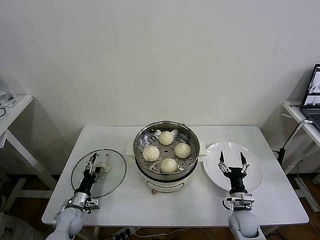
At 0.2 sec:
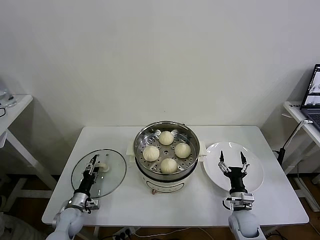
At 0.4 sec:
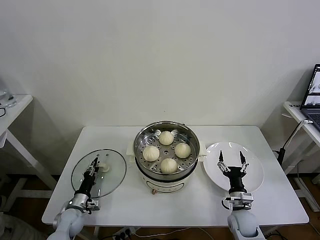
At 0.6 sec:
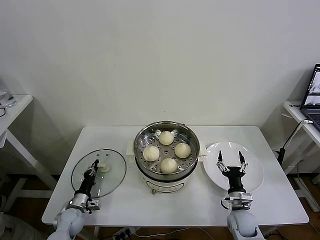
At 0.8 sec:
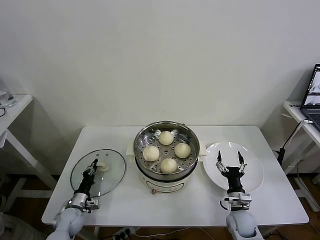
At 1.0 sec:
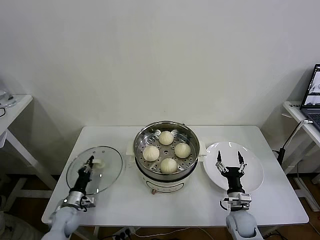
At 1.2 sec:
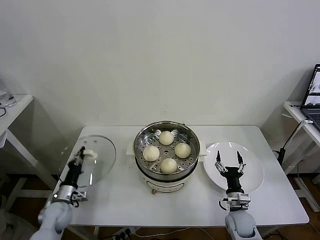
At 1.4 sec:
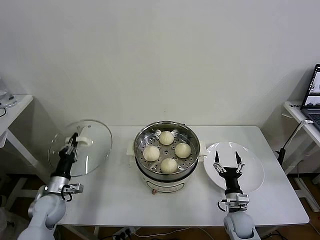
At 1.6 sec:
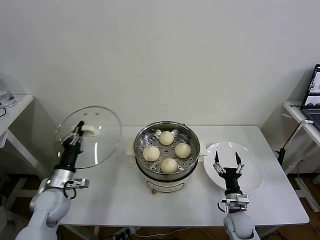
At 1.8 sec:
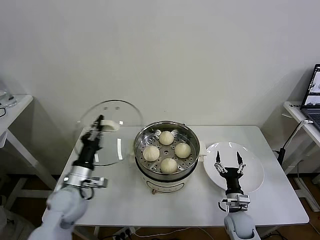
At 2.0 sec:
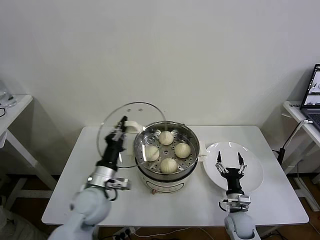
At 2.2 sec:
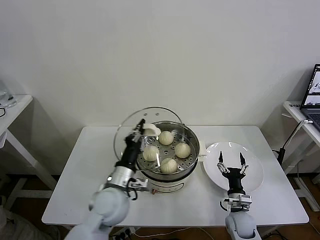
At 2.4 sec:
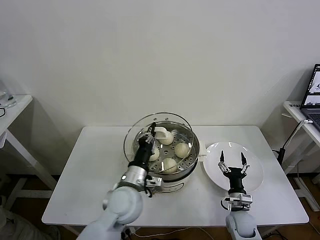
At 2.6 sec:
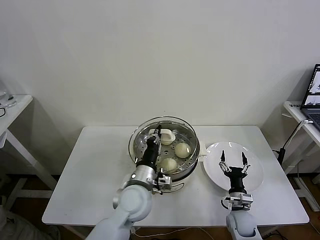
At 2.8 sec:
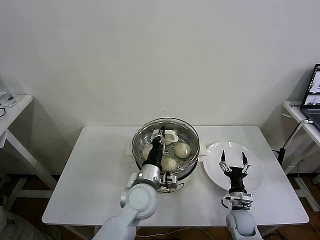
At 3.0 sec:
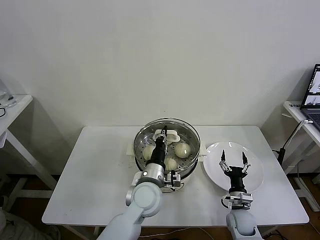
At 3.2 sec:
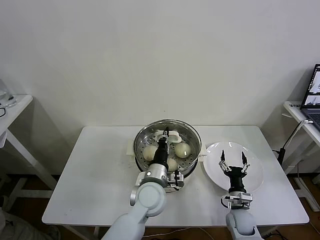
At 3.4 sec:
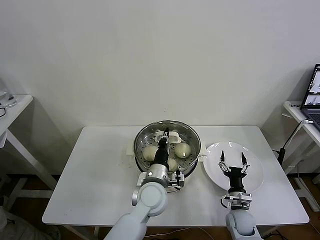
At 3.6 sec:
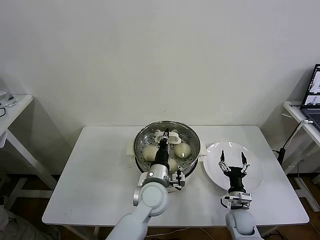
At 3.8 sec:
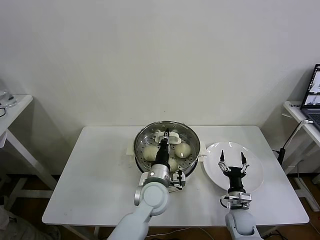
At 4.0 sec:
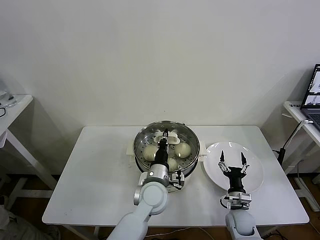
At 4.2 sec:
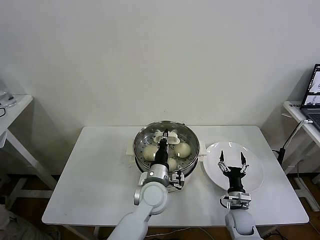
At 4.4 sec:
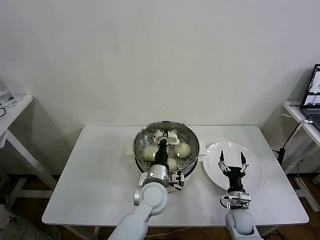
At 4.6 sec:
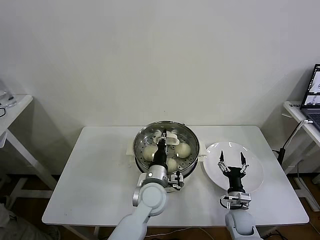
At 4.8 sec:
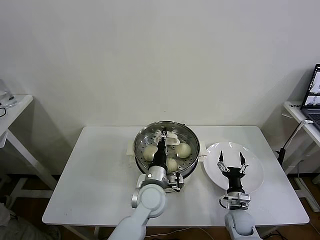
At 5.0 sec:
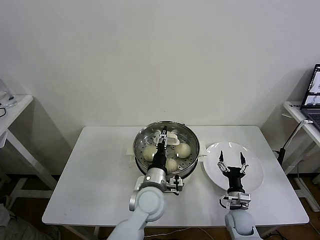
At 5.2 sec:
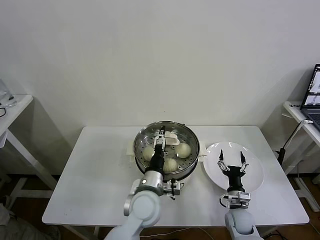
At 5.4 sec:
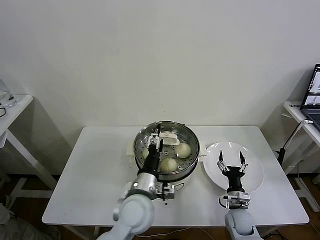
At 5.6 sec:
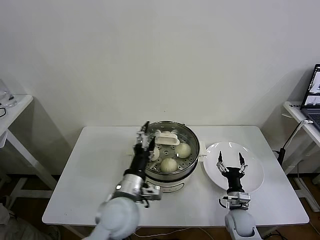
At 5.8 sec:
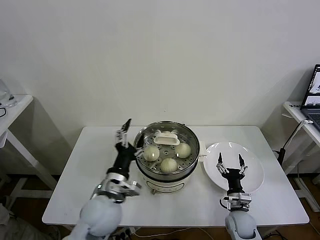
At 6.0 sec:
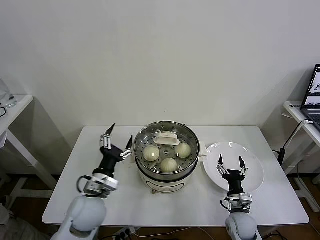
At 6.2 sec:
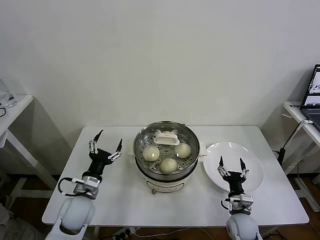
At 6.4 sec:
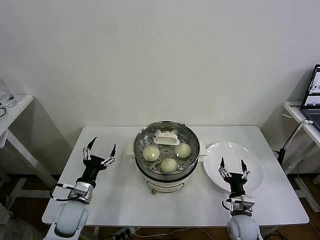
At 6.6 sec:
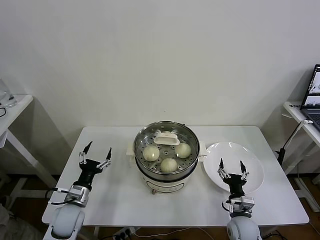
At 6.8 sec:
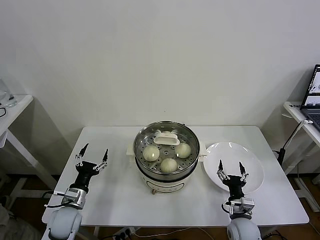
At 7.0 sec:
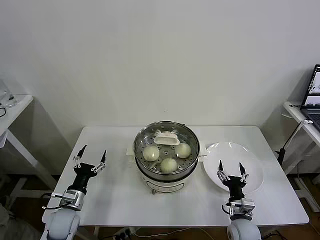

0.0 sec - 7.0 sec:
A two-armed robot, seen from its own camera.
Task of the whole recording: take steamed baozi put them in steamer then cover it.
Step, 1.0 sec - 5.2 sec: Place the pot lid on the steamer with left gripper.
0.0 sec - 1.4 sec: The left gripper is displaced upward by about 10 cm, and closes up.
1.4 sec - 2.8 sec: The left gripper heads to the right, covering some 30 cm.
2.8 sec - 4.2 sec: The left gripper moves some 5 cm.
4.2 sec - 5.6 sec: The left gripper goes about 10 cm backward, to the left and upward, and opens up.
5.6 sec - 7.0 sec: The right gripper moves roughly 5 cm, while the left gripper travels to the left and downward by roughly 25 cm.
